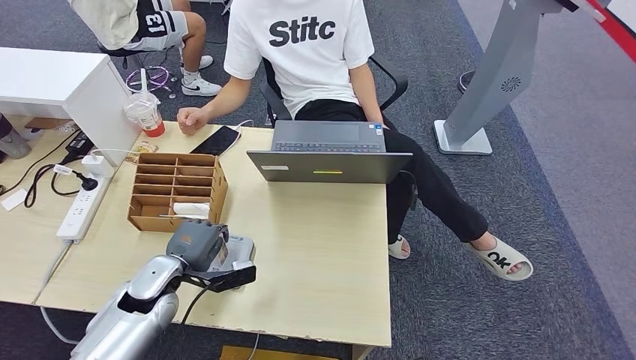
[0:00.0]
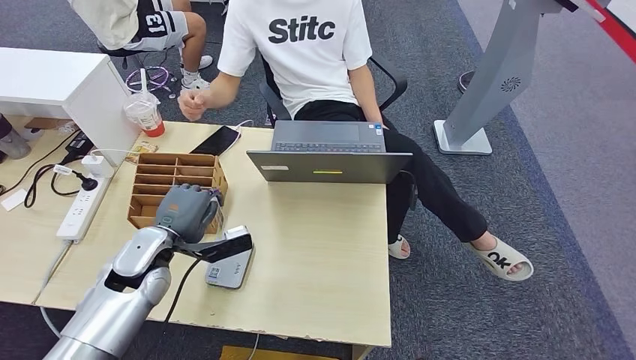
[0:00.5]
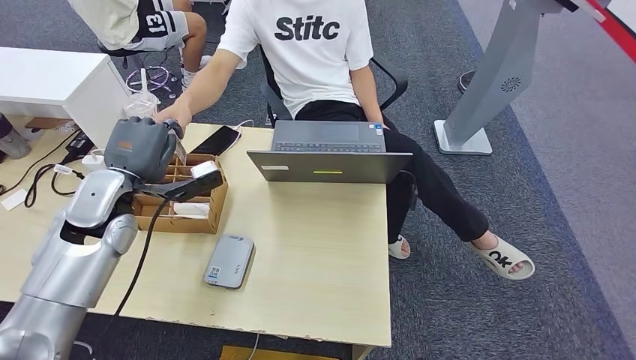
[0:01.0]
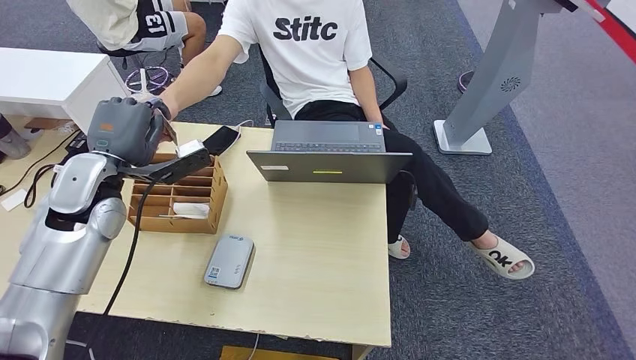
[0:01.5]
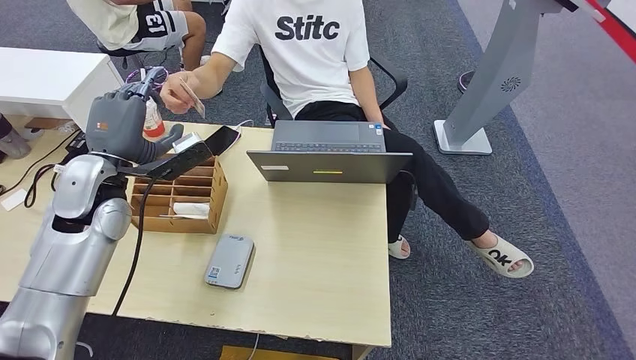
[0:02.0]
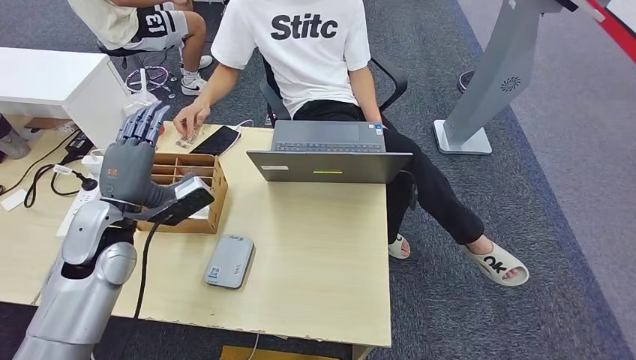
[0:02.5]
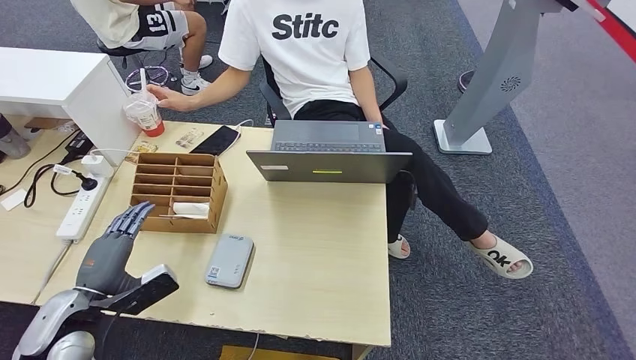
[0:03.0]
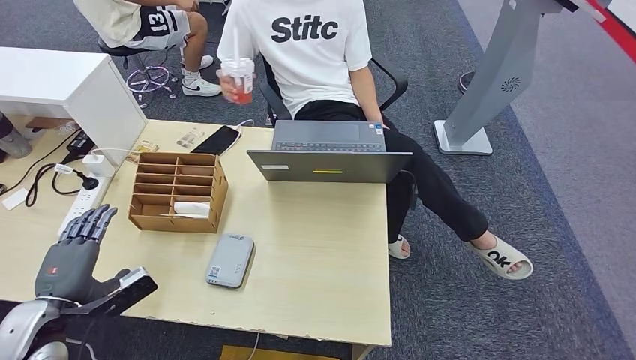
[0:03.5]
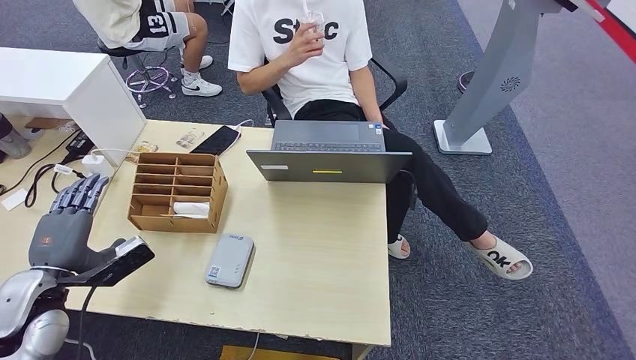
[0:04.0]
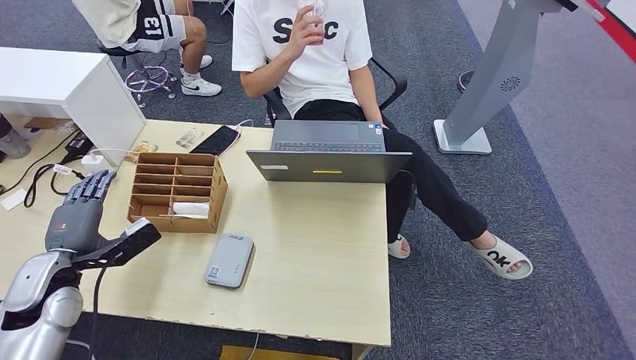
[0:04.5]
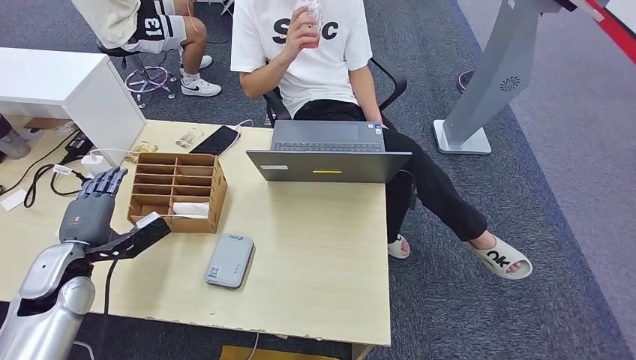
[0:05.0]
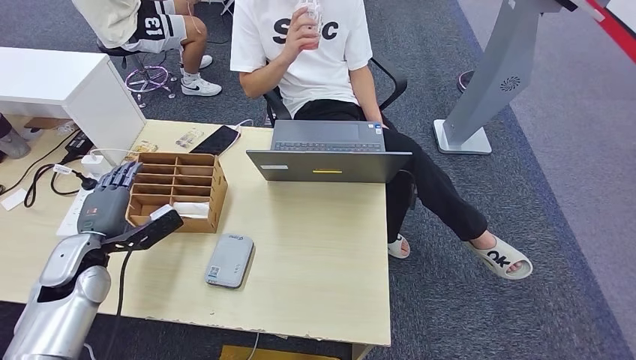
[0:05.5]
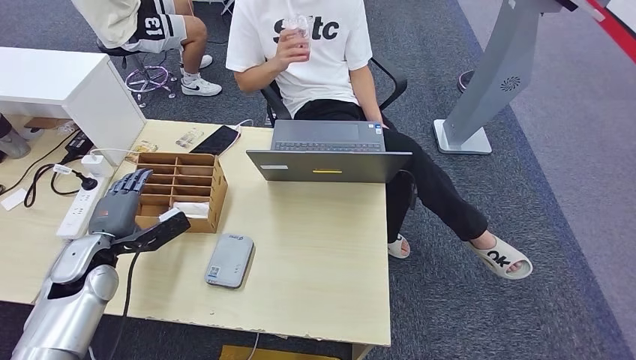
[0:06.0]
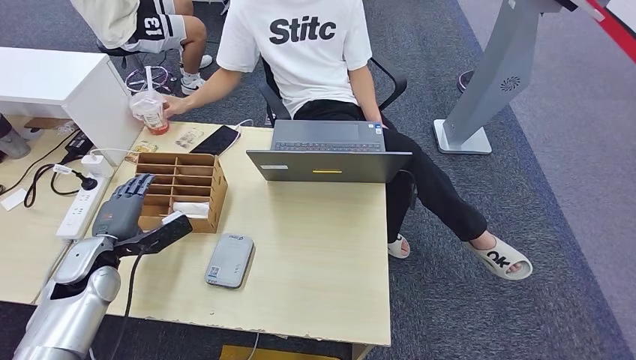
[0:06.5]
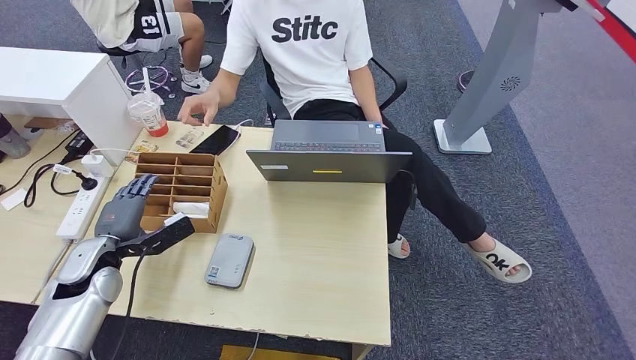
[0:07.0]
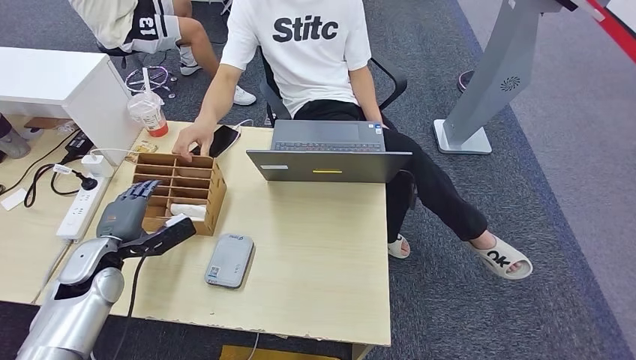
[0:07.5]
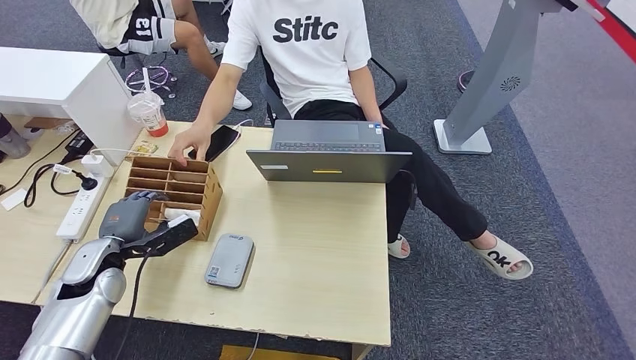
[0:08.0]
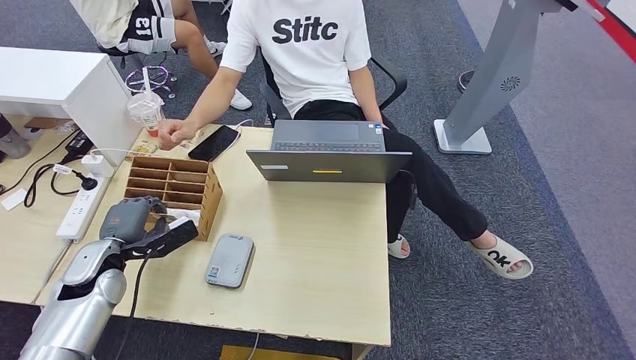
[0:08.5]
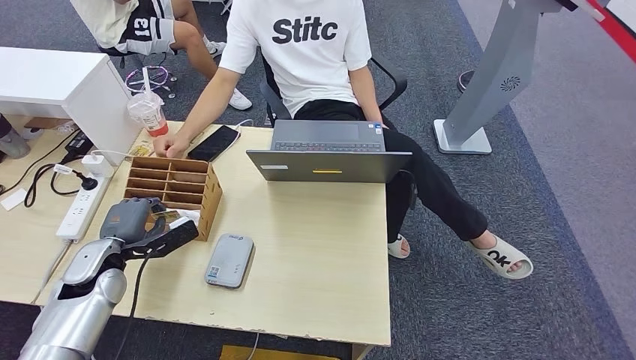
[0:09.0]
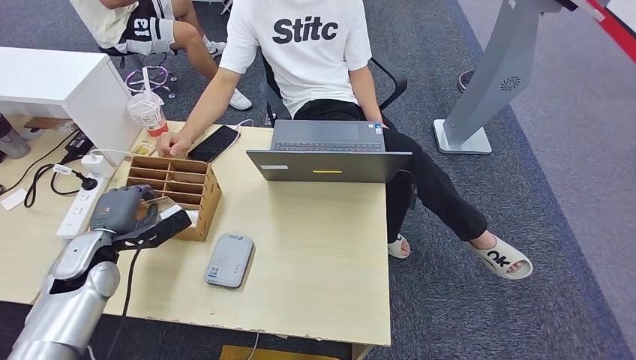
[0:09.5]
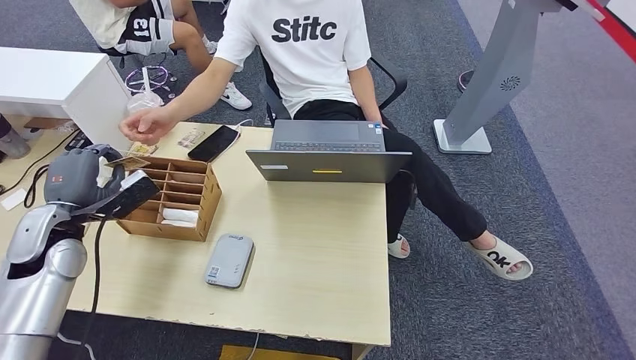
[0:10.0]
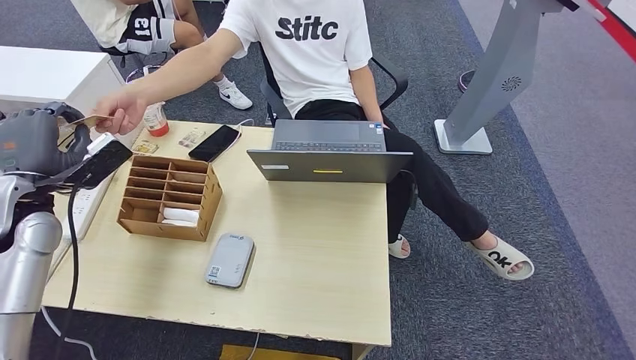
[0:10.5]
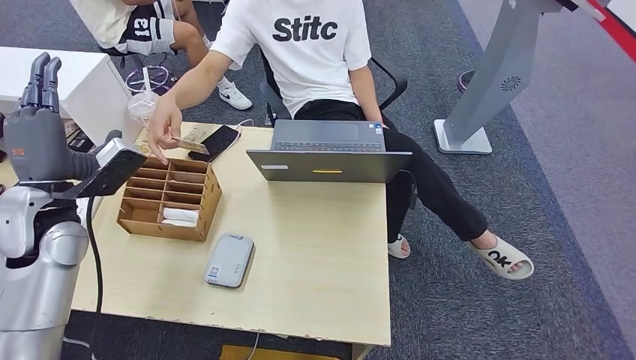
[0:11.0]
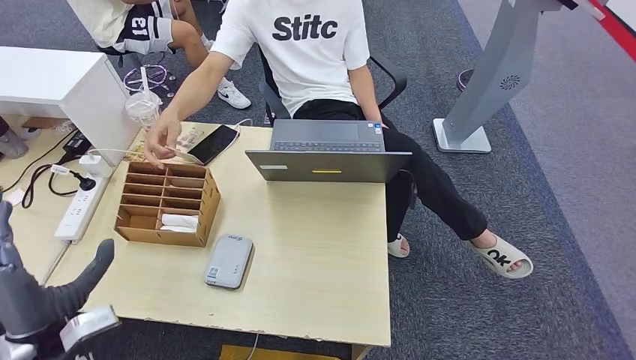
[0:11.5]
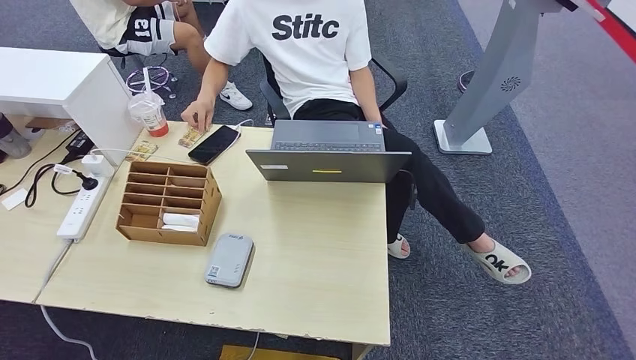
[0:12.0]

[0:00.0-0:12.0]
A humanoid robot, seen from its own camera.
Step, 0:00.0 to 0:02.0: Hand the ID card to the person.
Step, 0:02.5 to 0:09.5: Pick up the room key from the key card box.
Step, 0:10.0 to 0:12.0: Hand the room key to the person.
0:00.0 to 0:02.0: The left hand goes roughly 20 cm upward and forward.
0:02.0 to 0:04.0: The left hand moves to the left, backward and downward, about 20 cm.
0:04.0 to 0:06.0: The left hand is displaced forward by roughly 5 cm.
0:06.0 to 0:08.0: There are only small adjustments of the hands.
0:08.0 to 0:10.0: The left hand goes roughly 10 cm upward.
0:10.0 to 0:12.0: The left hand goes about 35 cm backward and downward.

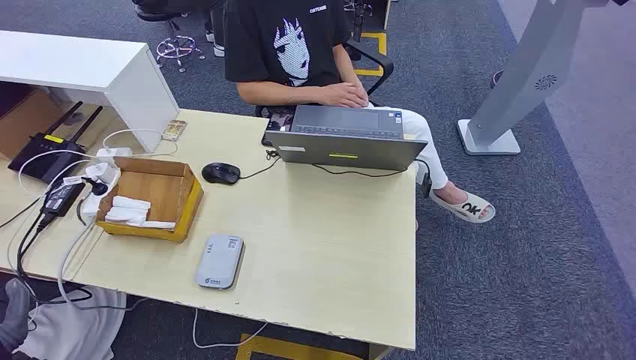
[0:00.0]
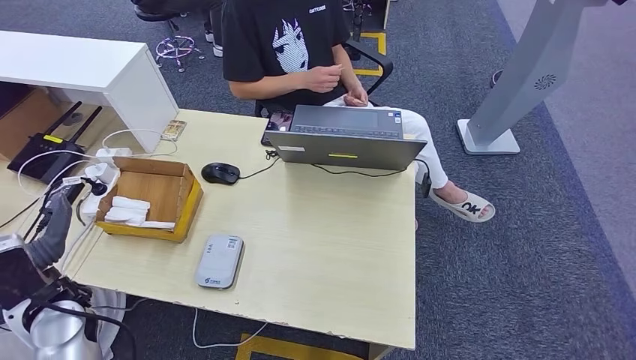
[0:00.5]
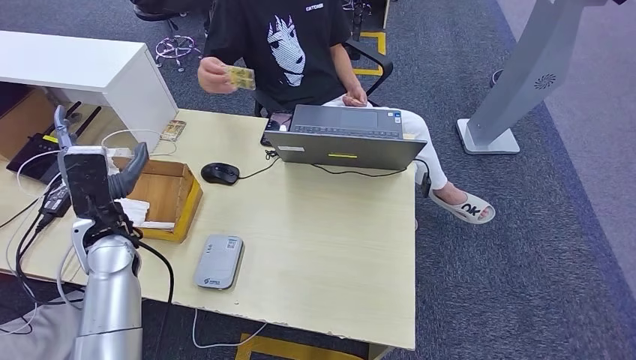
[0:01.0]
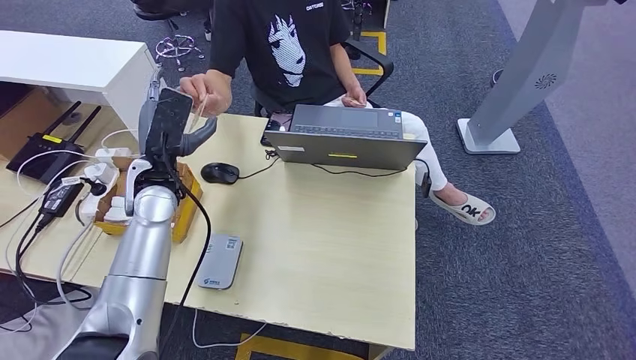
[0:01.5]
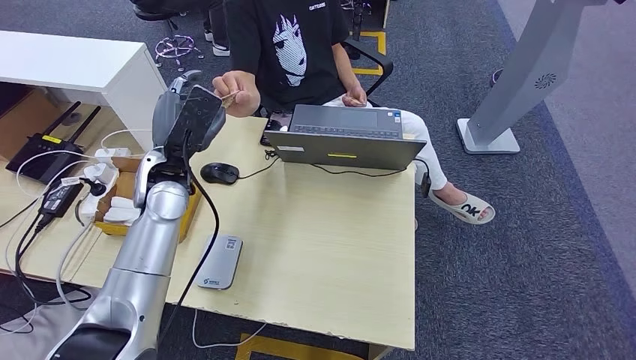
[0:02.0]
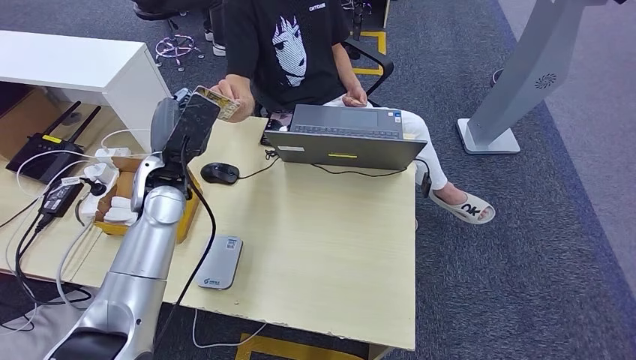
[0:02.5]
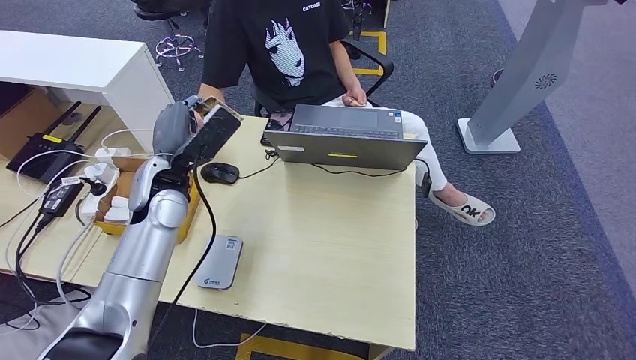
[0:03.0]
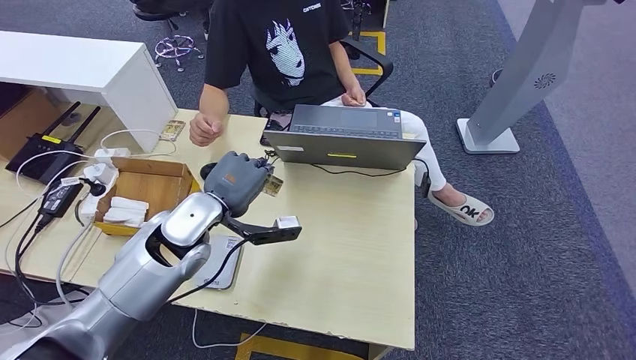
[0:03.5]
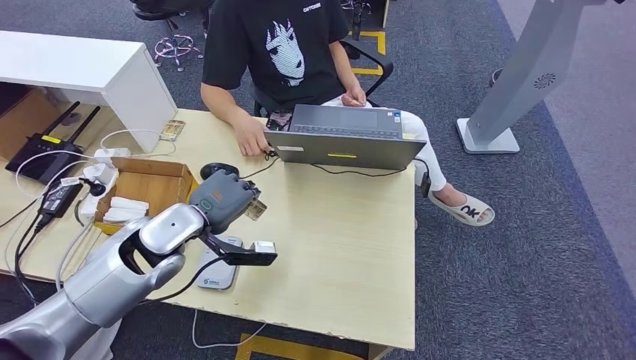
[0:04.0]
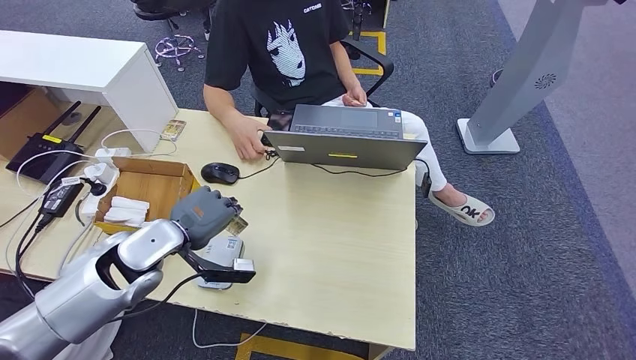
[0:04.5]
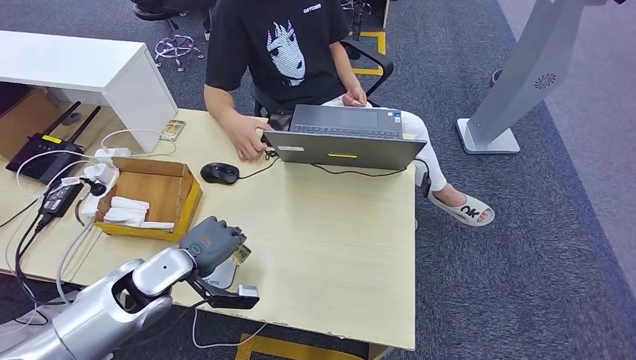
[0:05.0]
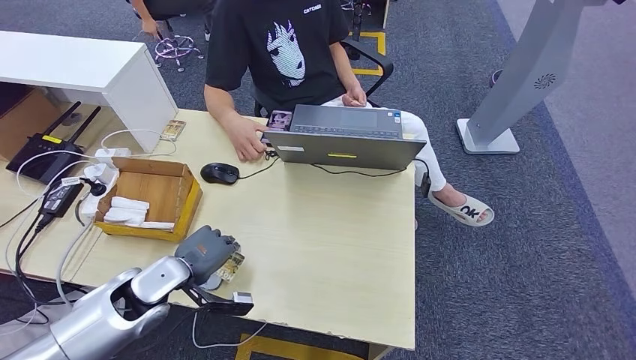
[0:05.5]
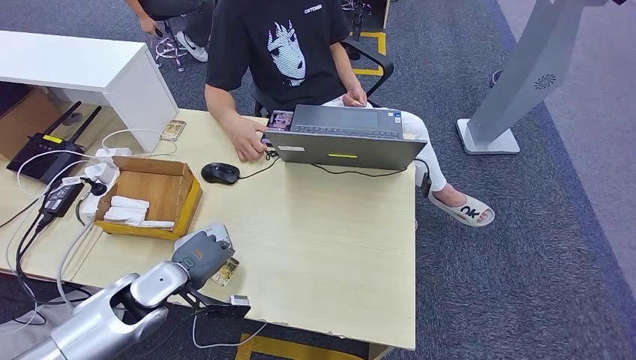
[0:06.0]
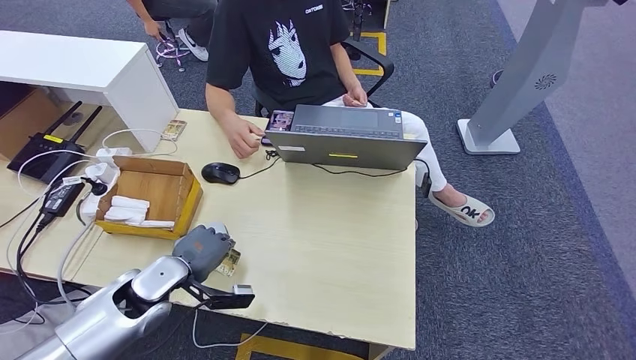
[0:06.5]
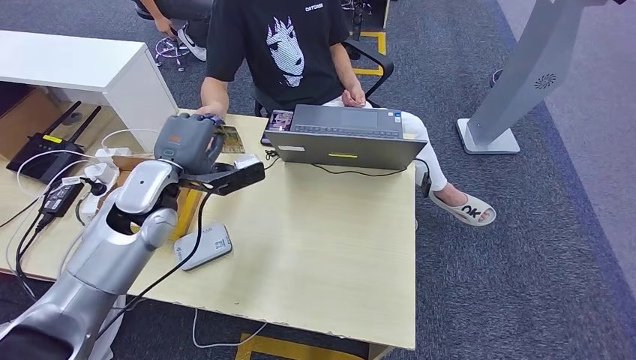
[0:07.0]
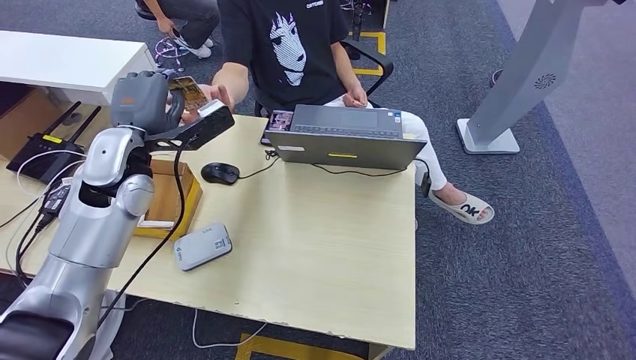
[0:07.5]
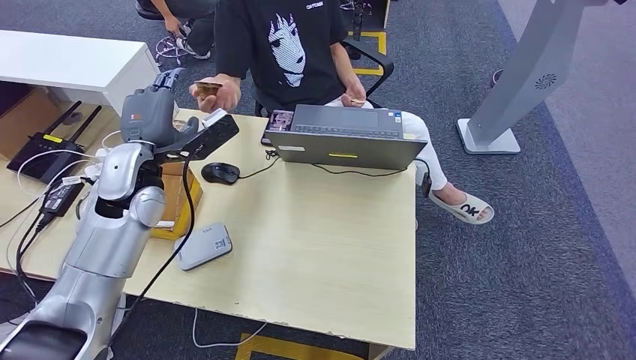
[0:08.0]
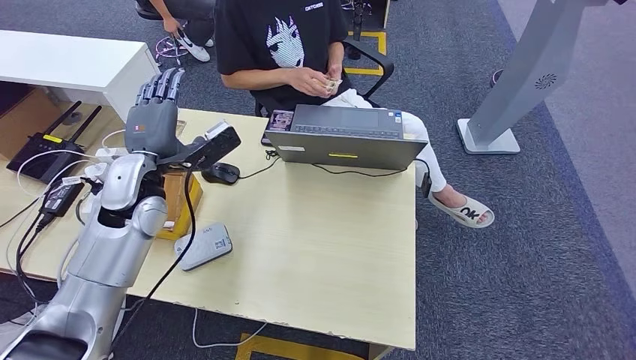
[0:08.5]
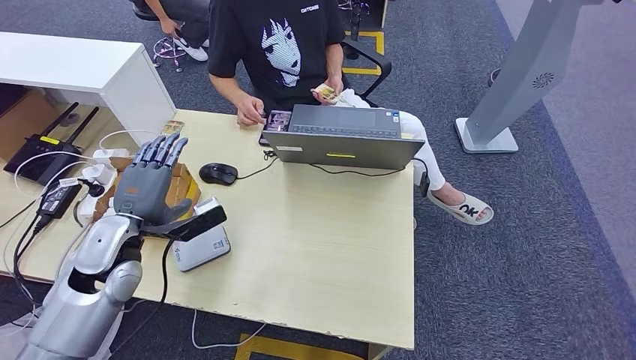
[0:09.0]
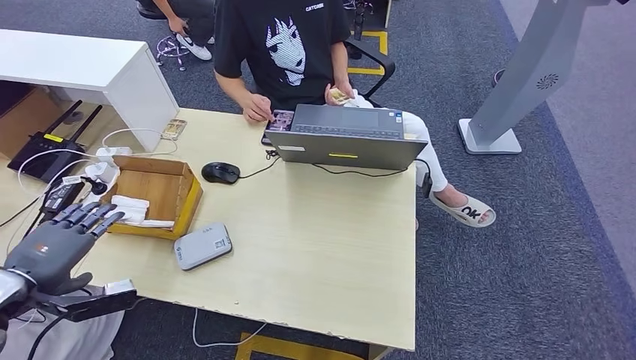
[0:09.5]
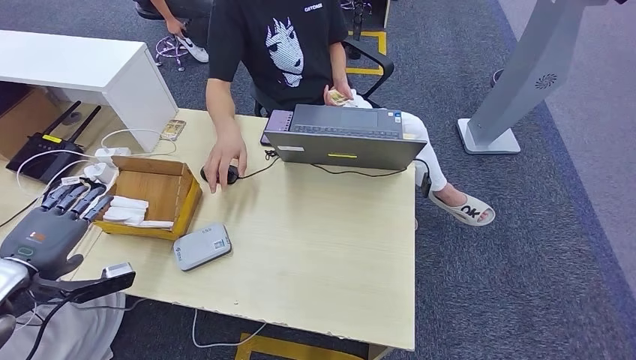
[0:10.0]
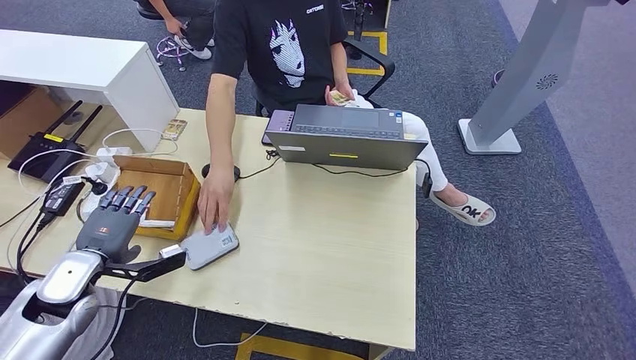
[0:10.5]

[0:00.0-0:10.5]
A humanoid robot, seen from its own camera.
Step, 0:00.0 to 0:03.0: Take the ID card from the person's hand.
Step, 0:03.5 to 0:06.0: Place the ID card on the card reader.
Step, 0:06.5 to 0:08.5: Hand the ID card to the person.
0:02.0 to 0:04.0: The left hand travels backward and downward by about 10 cm.
0:04.0 to 0:06.5: The left hand is displaced downward, to the left and backward by roughly 10 cm.
0:06.5 to 0:08.5: The left hand is displaced upward and forward by approximately 20 cm.
0:08.5 to 0:10.5: The left hand shifts roughly 20 cm to the left, backward and downward.
